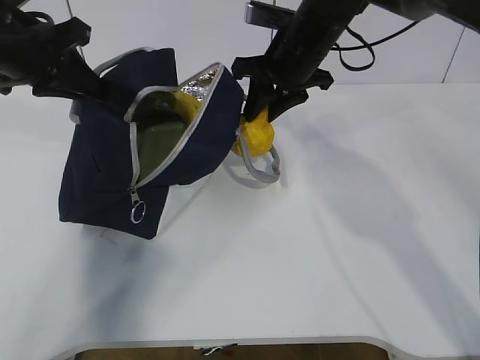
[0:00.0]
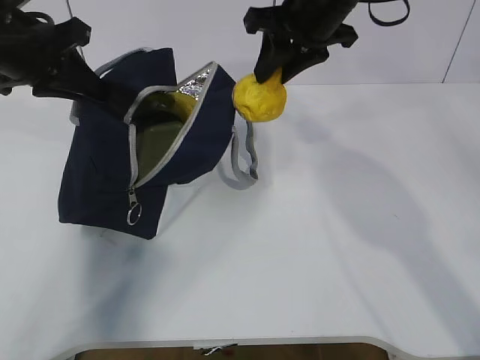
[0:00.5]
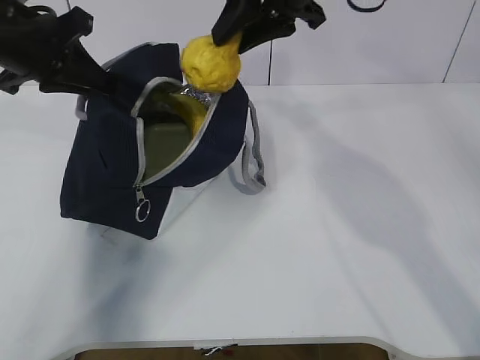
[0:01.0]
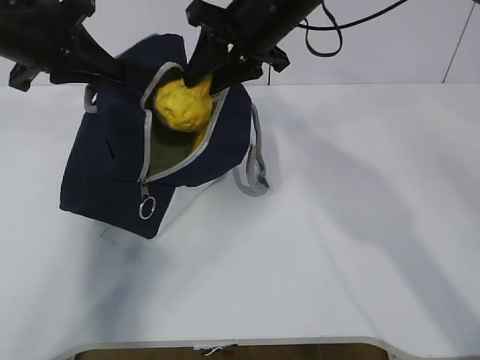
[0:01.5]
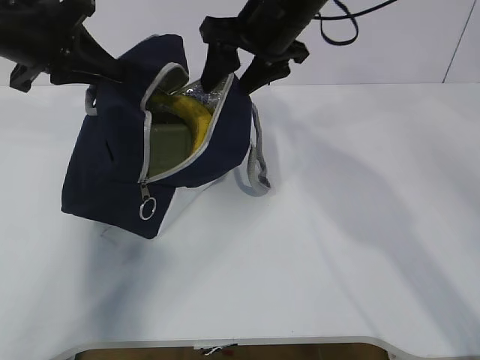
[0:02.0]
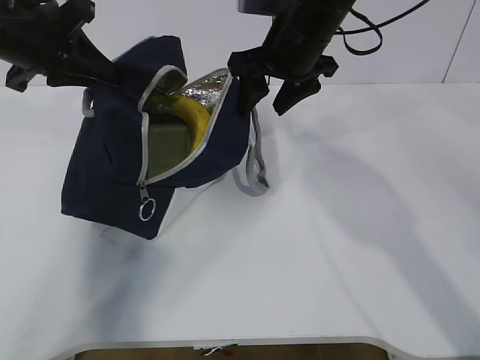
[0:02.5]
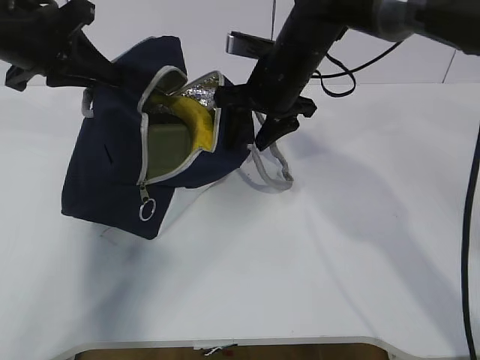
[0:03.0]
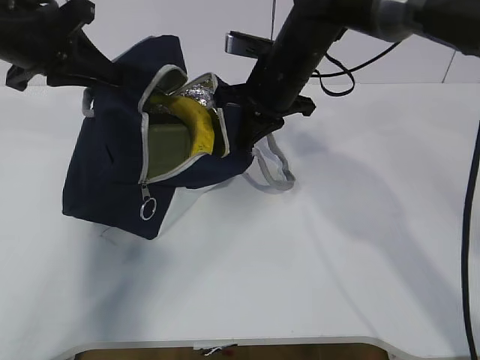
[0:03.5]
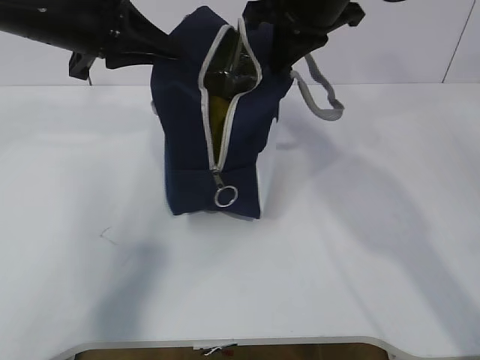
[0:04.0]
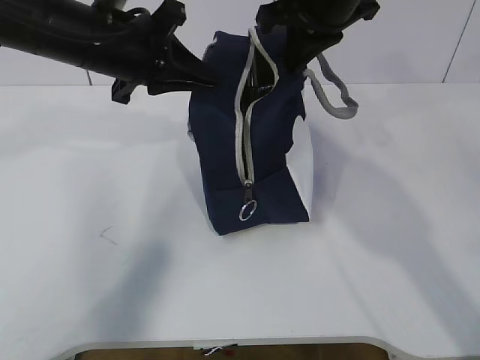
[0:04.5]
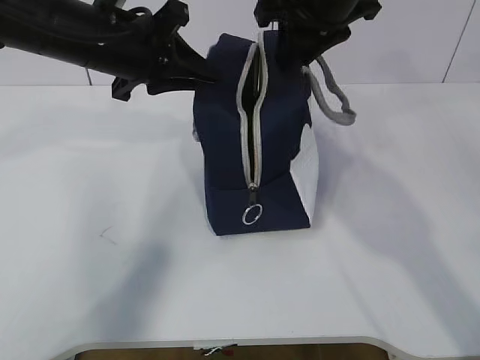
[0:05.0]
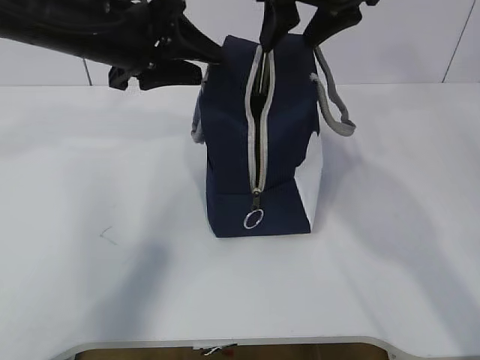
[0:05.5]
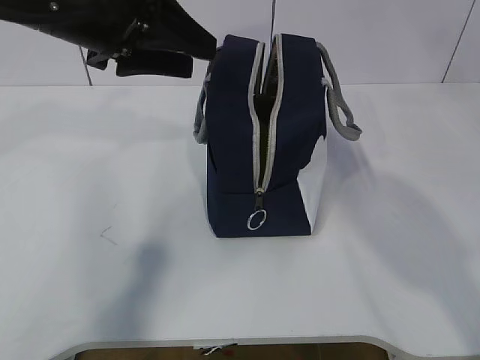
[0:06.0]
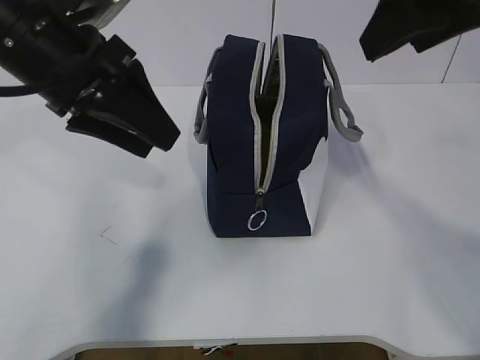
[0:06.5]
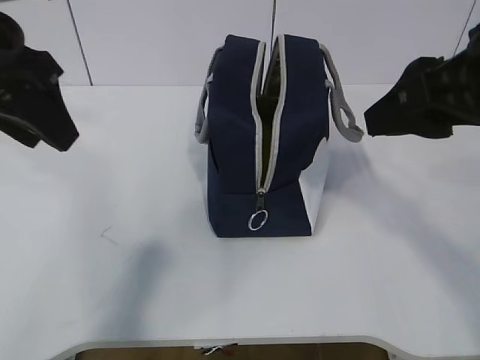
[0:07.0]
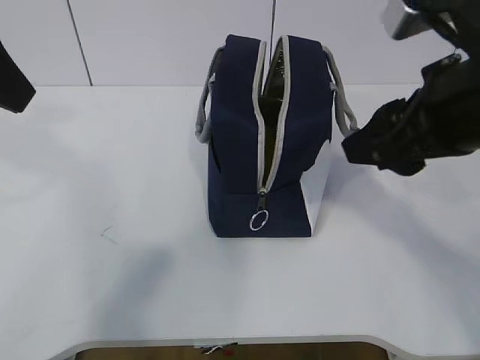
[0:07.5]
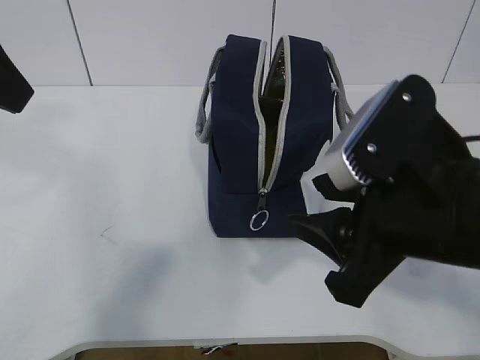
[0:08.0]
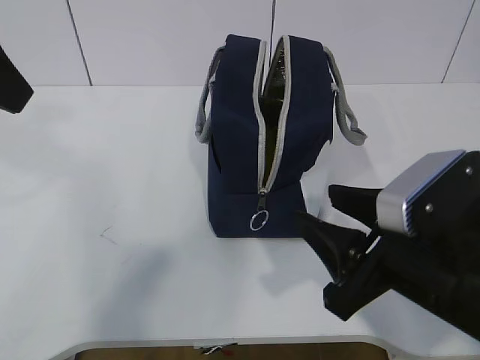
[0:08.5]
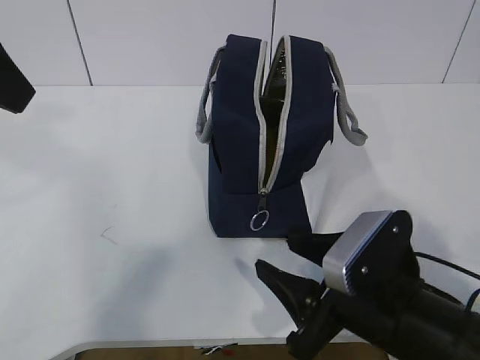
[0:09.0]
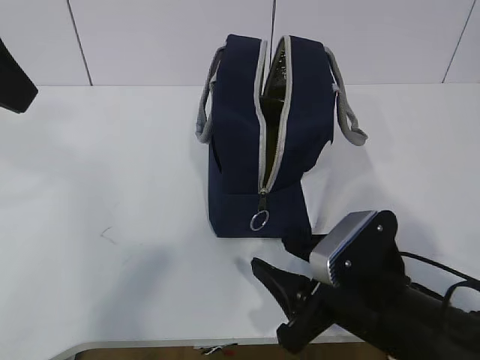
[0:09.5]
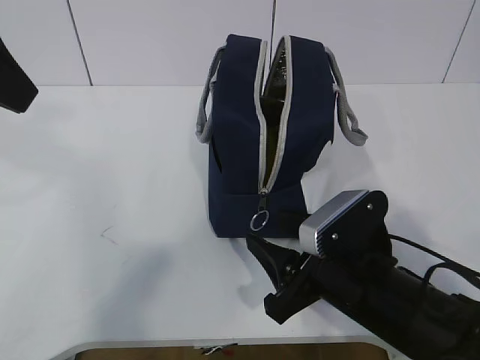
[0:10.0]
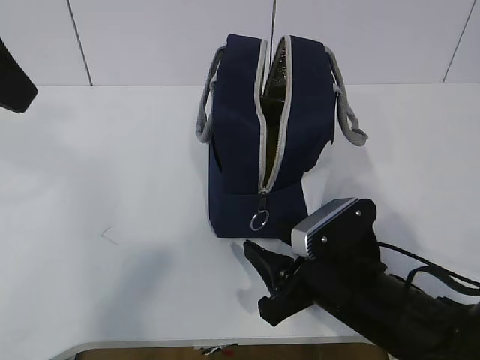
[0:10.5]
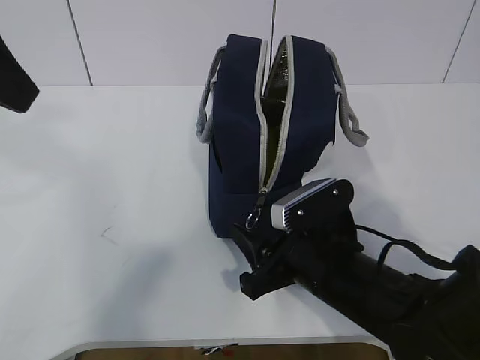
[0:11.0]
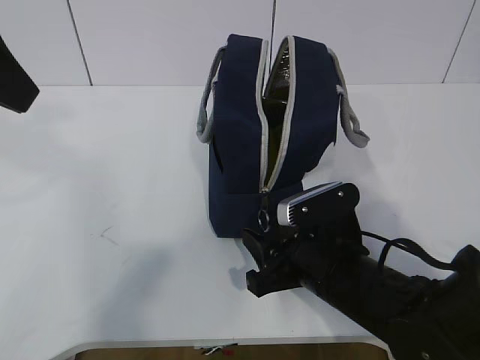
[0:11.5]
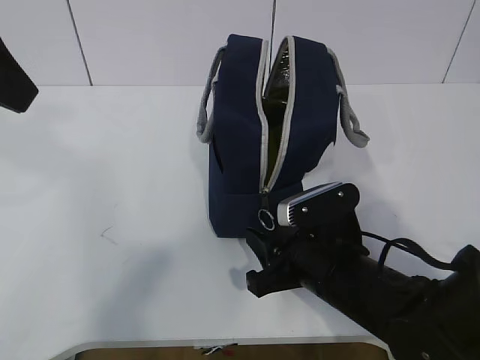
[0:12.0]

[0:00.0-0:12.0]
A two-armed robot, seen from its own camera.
0:00.0 to 0:02.0: The right gripper opens up.
0:02.0 to 0:04.0: The left gripper changes place by roughly 5 cm, while the right gripper goes downward and returns, about 5 cm each way, and closes its fingers.
0:04.0 to 0:06.0: The right gripper moves upward and backward, roughly 10 cm, and opens up. The left gripper opens its fingers.
0:06.0 to 0:08.0: The right gripper shifts about 25 cm downward and backward. Meanwhile the left gripper travels backward, to the left and upward by approximately 15 cm.
0:08.0 to 0:10.0: The right gripper goes roughly 15 cm downward.
0:10.0 to 0:12.0: The grippers stay close to where they were, moving slightly.

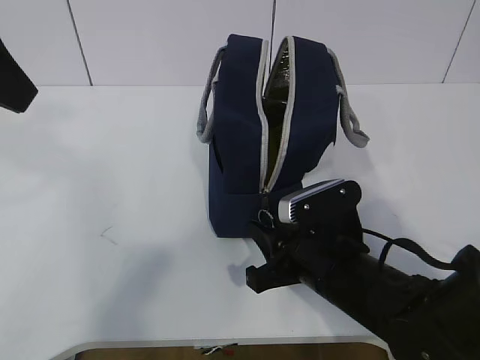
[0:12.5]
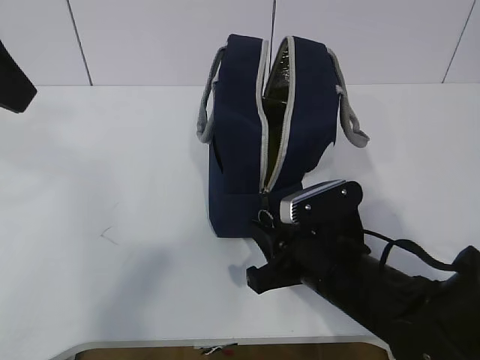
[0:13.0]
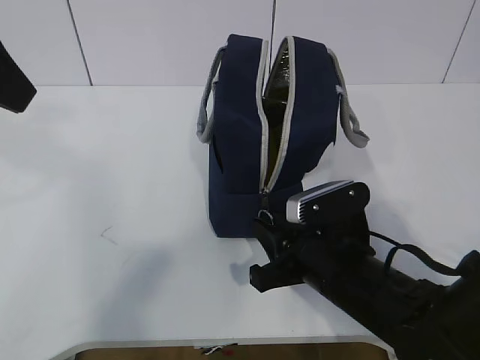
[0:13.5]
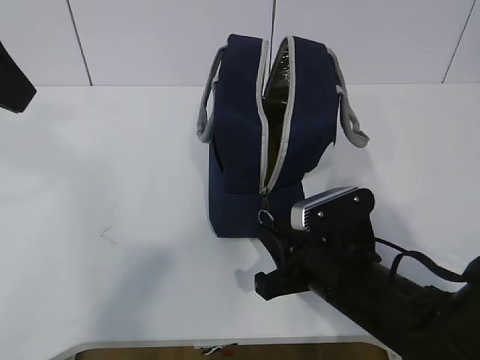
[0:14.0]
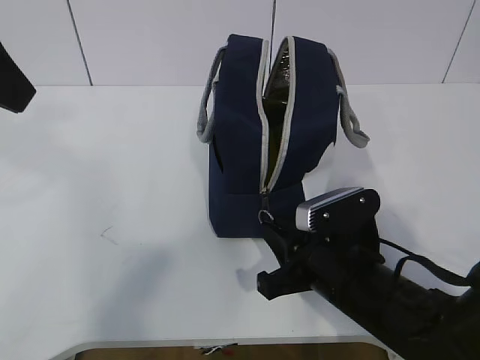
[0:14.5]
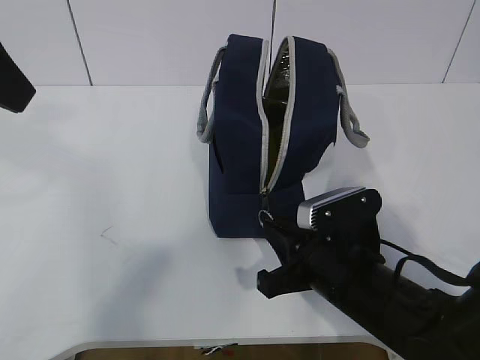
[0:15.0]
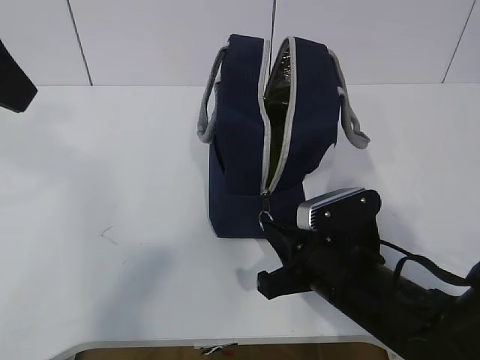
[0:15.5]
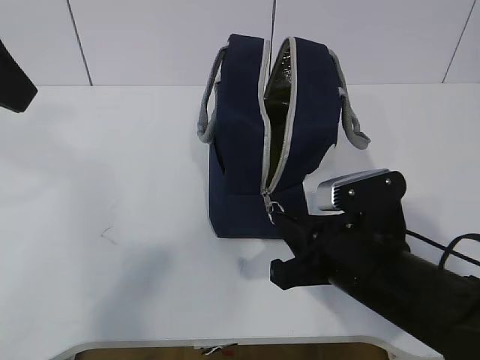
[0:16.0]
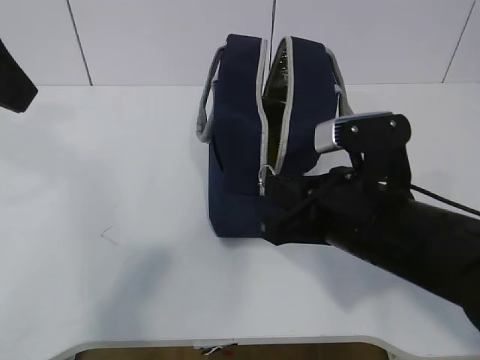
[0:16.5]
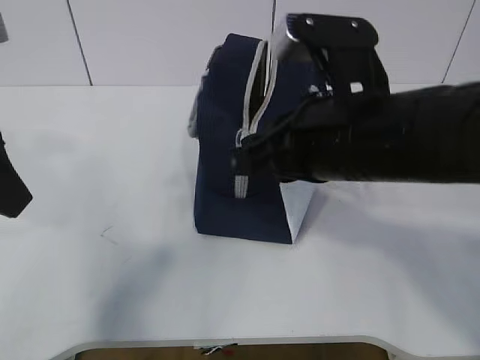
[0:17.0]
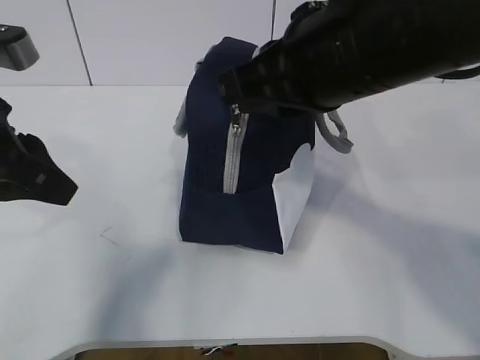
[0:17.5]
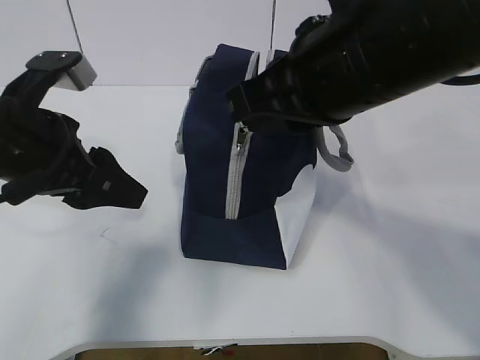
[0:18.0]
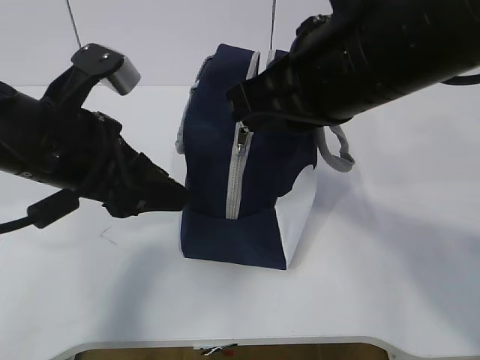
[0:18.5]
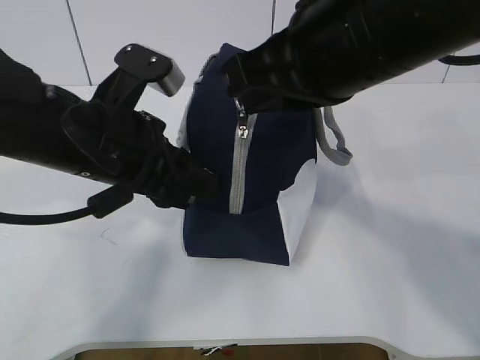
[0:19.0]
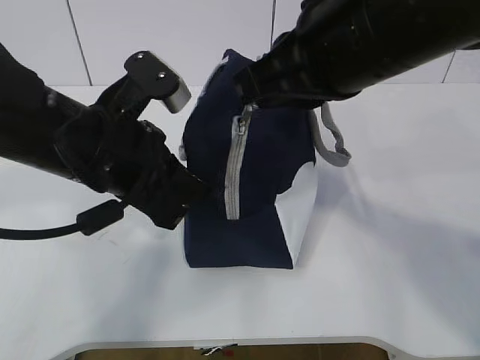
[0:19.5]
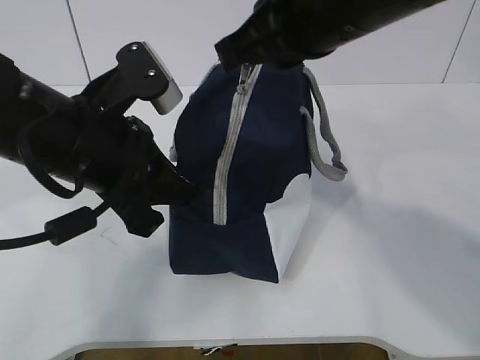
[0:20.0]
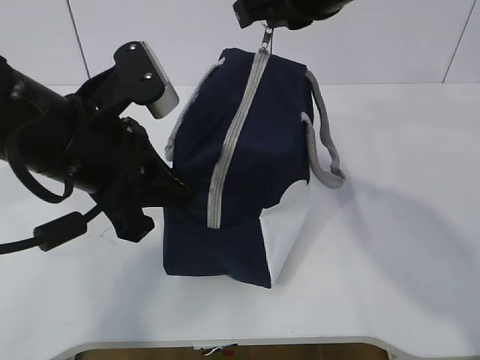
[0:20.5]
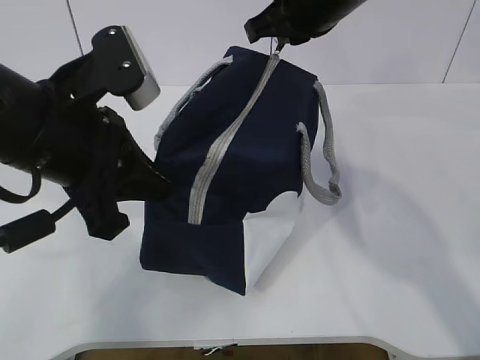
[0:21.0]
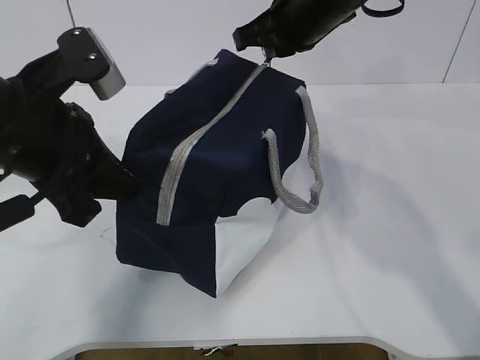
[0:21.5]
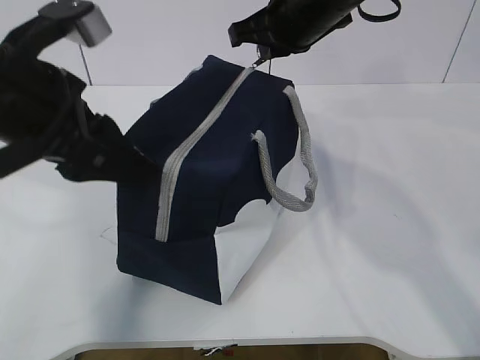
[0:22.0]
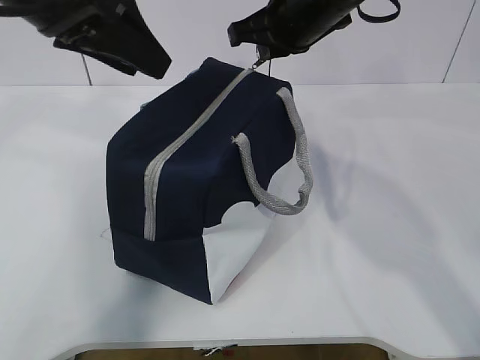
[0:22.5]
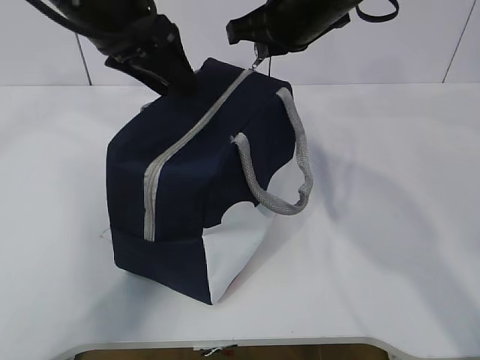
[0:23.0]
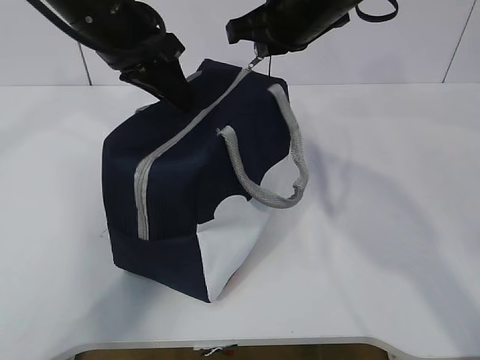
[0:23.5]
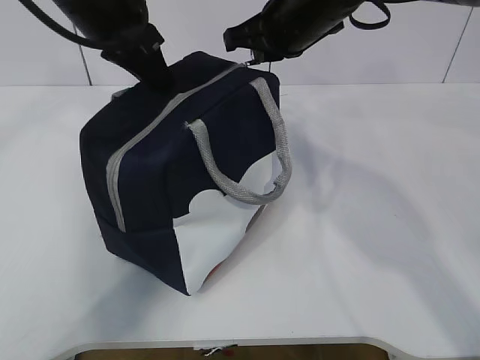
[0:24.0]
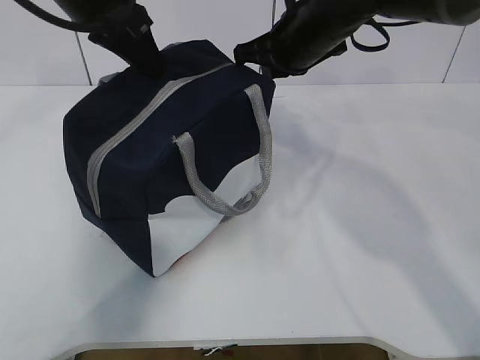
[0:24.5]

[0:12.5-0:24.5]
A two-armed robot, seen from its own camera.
Step, 0:13.0 to 0:16.0: Pull the zipper with your right hand.
Step, 0:16.5 to 0:17.0: Grab the lunch bag with your left hand.
0:12.5 to 0:14.5: Both grippers stay put.
0:14.5 to 0:16.5: The right gripper moves upward, approximately 10 cm.
0:16.5 to 0:18.5: The left gripper heads downward and to the right, covering approximately 15 cm; the right gripper travels upward by approximately 15 cm.
0:18.5 to 0:20.5: The right gripper travels forward by some 10 cm; the left gripper closes up.
0:20.5 to 0:22.5: The right gripper moves forward and downward, roughly 10 cm; the left gripper moves upward and forward, approximately 15 cm, and opens.
0:22.5 to 0:24.5: The left gripper is displaced forward by some 5 cm, and closes.

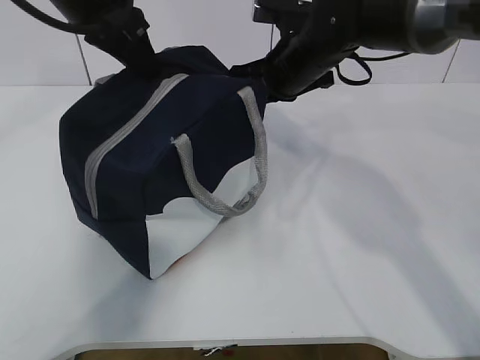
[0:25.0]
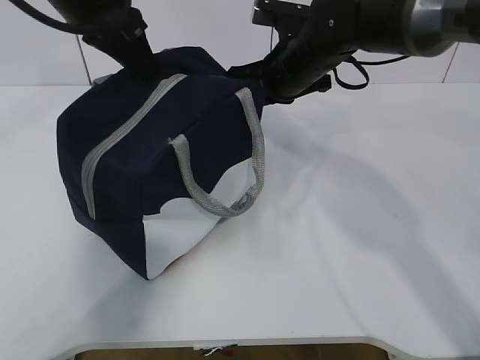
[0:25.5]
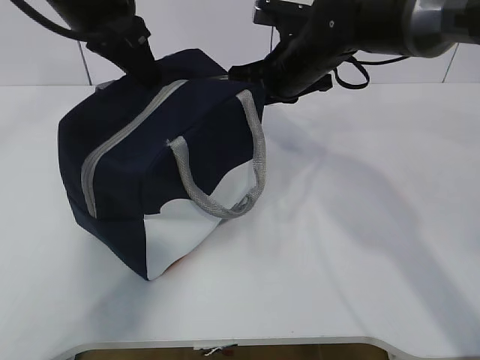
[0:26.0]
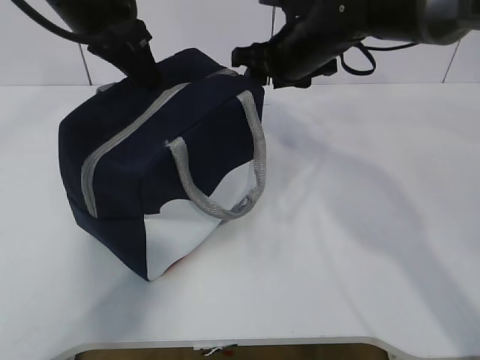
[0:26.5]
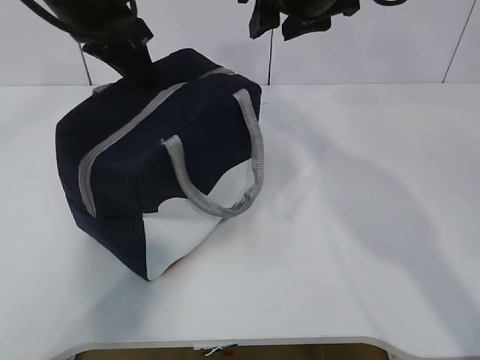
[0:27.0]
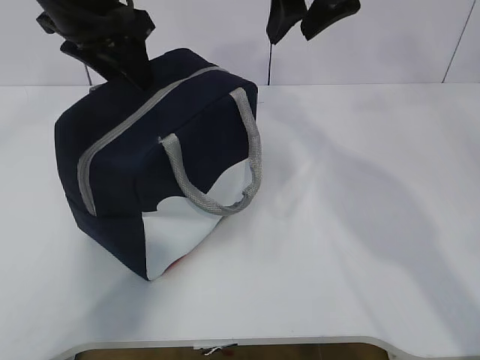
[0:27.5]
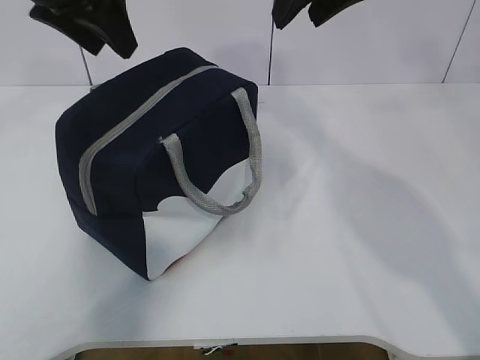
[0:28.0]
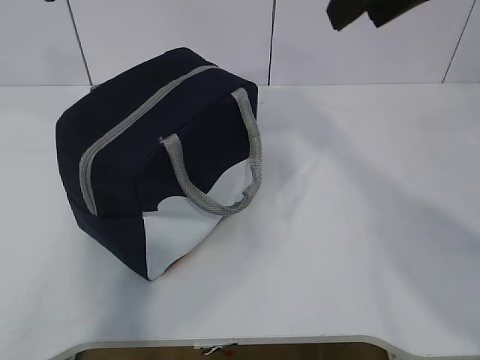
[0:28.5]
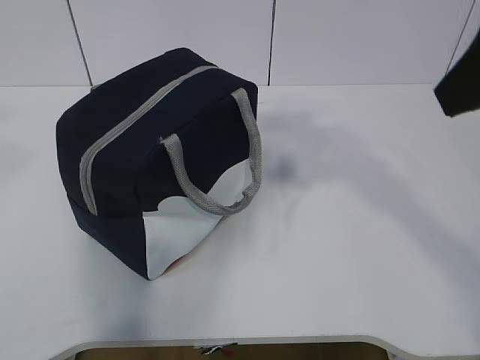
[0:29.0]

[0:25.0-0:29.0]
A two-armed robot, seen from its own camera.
0:25.0 to 0:27.0: The right gripper moves upward, roughly 10 cm, and opens its fingers.
0:27.0 to 0:29.0: The right gripper travels backward by some 25 cm, while the left gripper travels backward, upward and to the left by some 30 cm, and opens its fingers.
